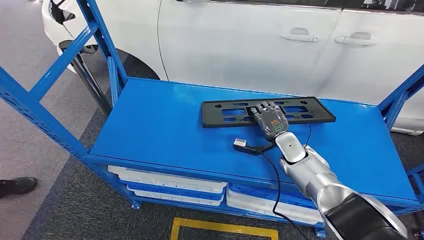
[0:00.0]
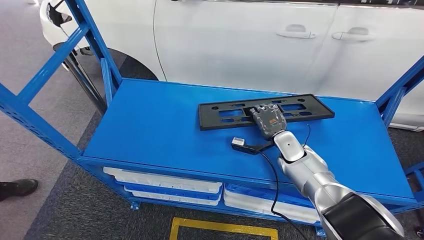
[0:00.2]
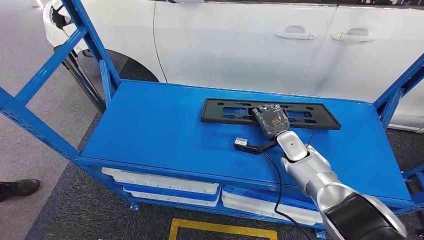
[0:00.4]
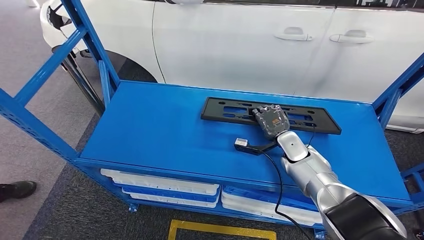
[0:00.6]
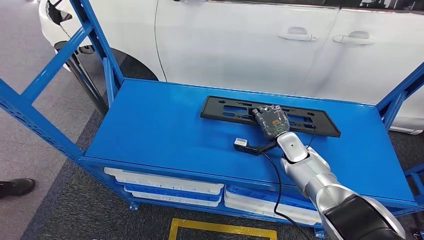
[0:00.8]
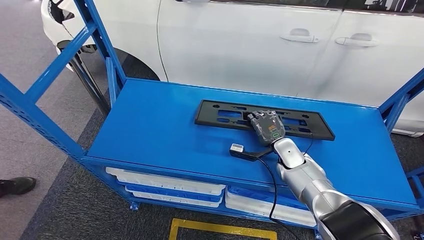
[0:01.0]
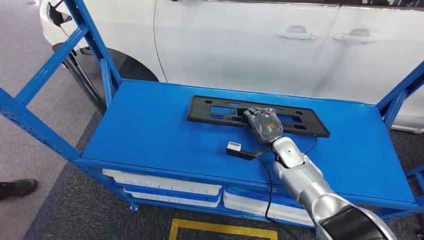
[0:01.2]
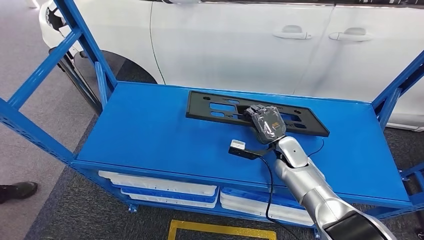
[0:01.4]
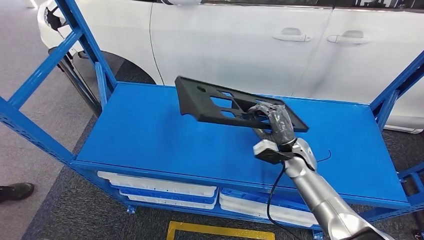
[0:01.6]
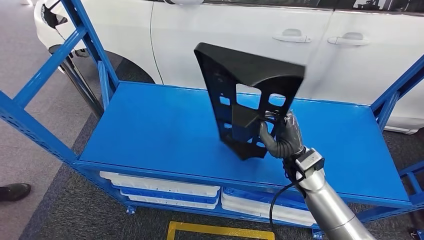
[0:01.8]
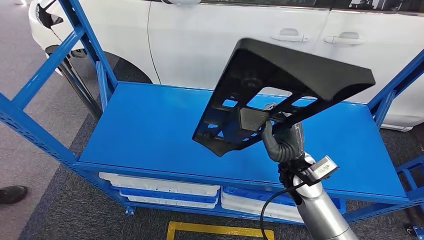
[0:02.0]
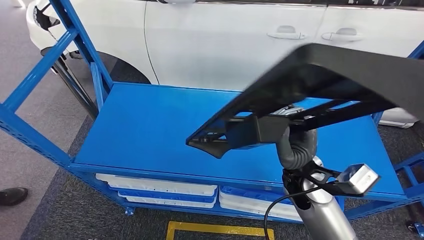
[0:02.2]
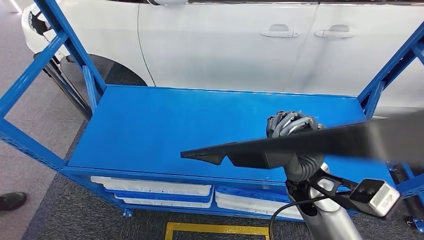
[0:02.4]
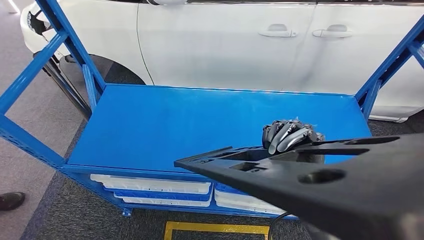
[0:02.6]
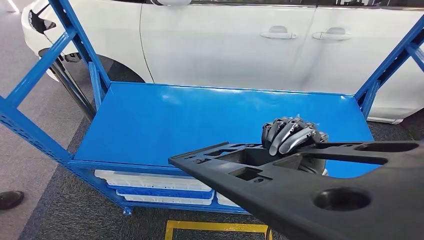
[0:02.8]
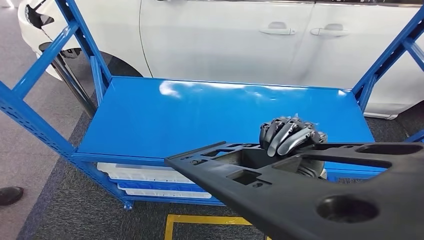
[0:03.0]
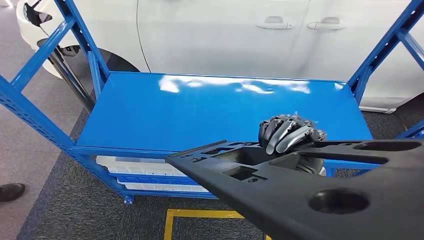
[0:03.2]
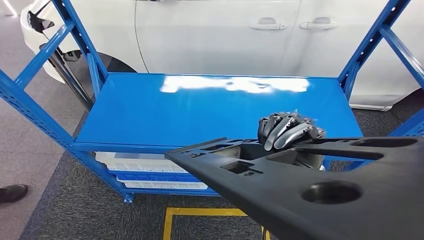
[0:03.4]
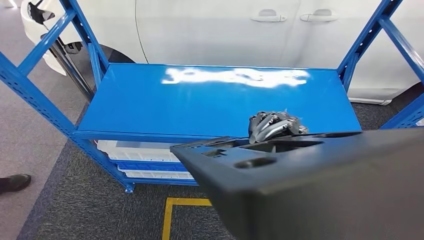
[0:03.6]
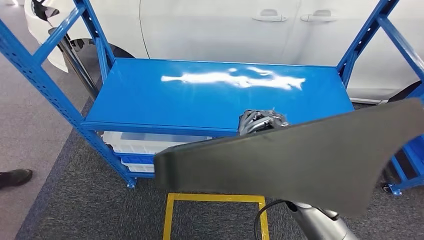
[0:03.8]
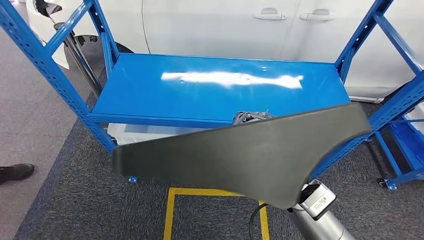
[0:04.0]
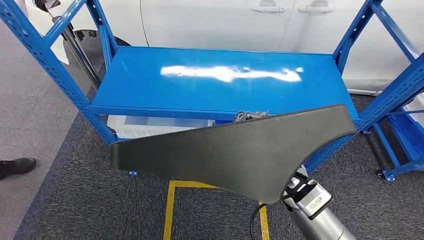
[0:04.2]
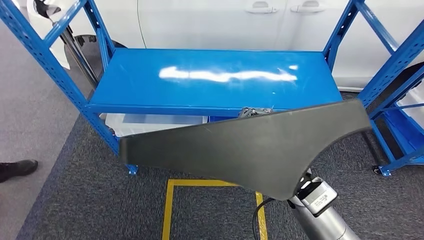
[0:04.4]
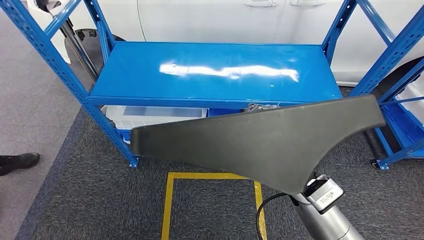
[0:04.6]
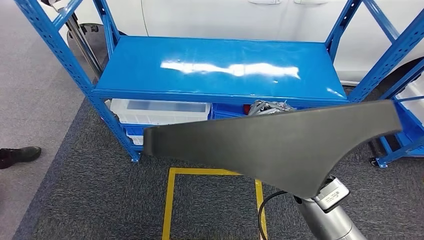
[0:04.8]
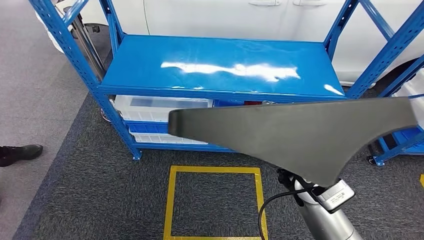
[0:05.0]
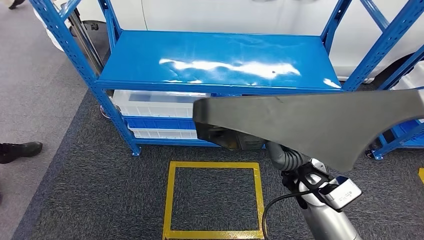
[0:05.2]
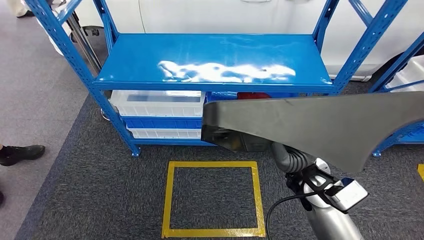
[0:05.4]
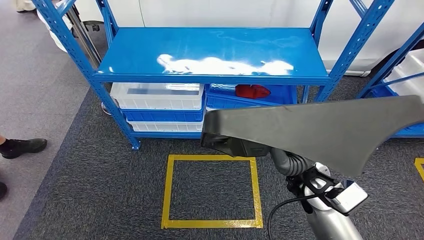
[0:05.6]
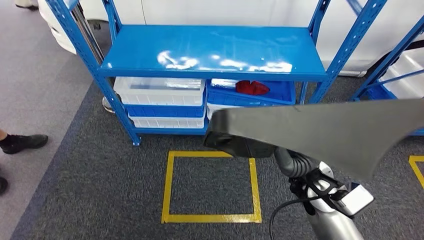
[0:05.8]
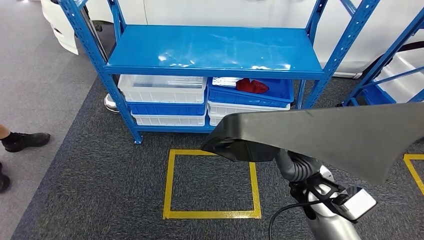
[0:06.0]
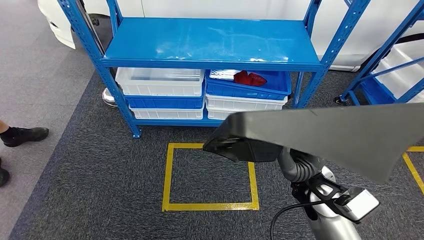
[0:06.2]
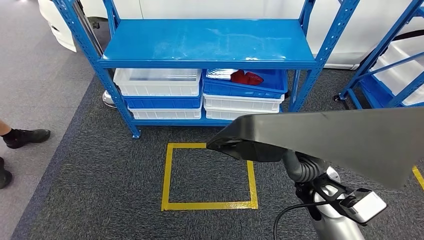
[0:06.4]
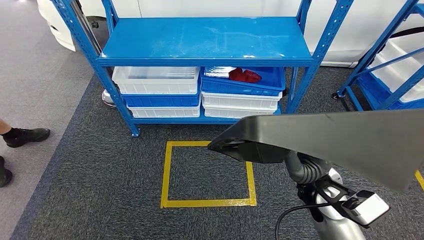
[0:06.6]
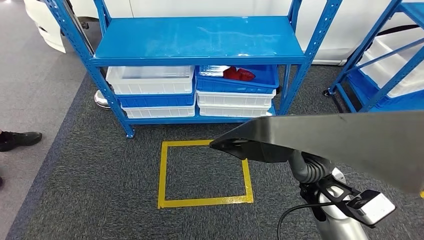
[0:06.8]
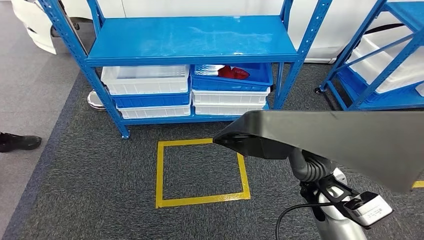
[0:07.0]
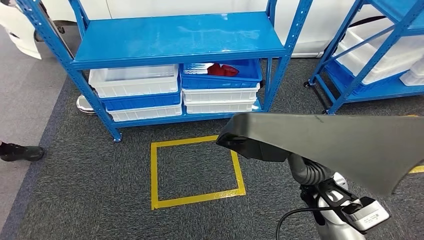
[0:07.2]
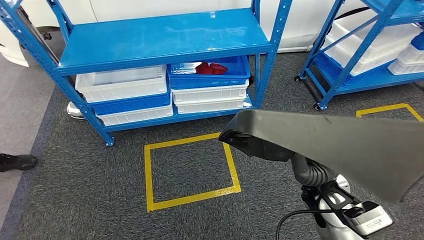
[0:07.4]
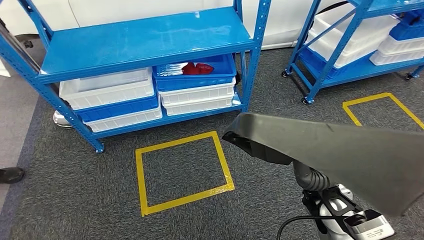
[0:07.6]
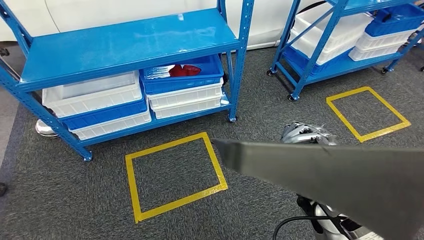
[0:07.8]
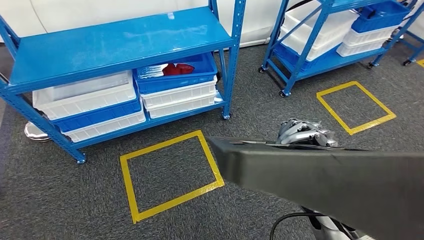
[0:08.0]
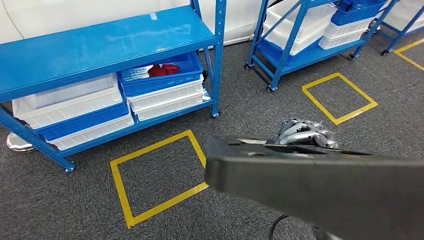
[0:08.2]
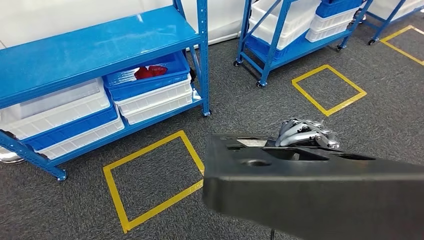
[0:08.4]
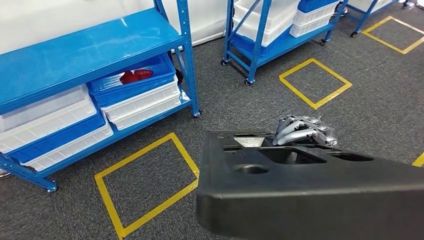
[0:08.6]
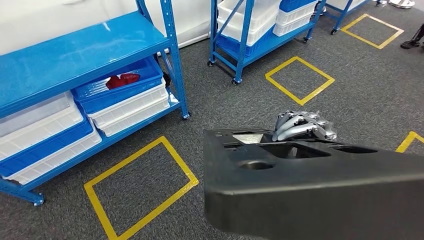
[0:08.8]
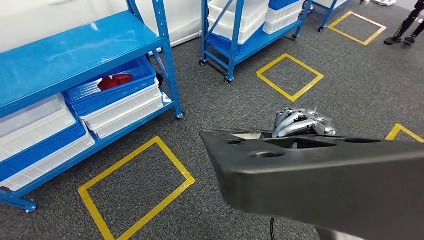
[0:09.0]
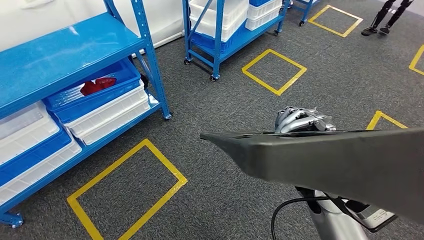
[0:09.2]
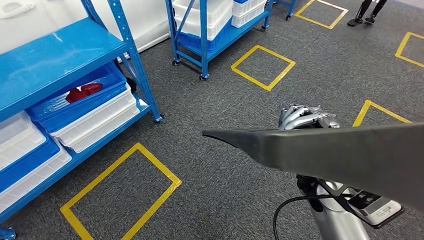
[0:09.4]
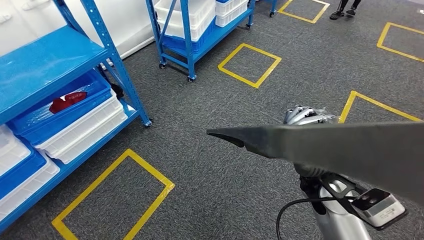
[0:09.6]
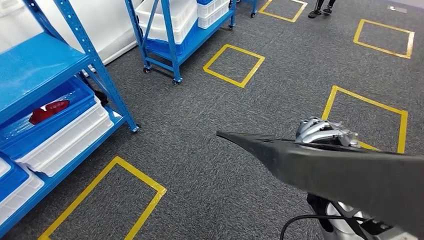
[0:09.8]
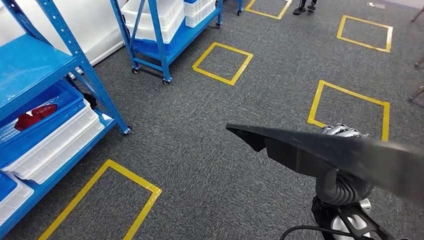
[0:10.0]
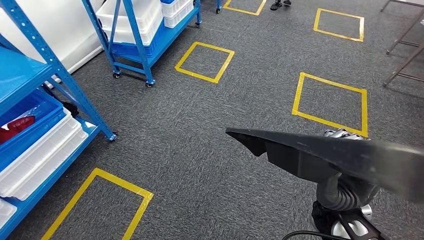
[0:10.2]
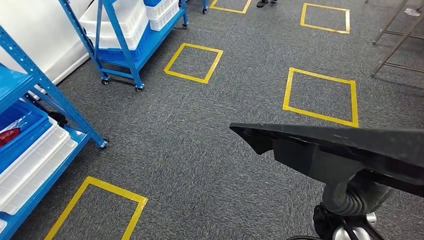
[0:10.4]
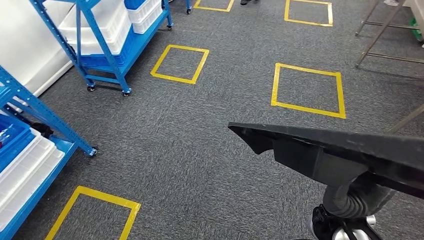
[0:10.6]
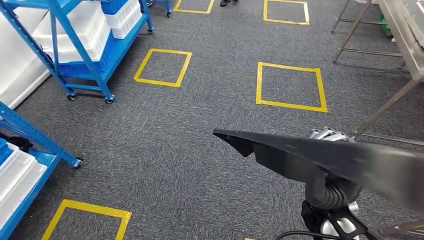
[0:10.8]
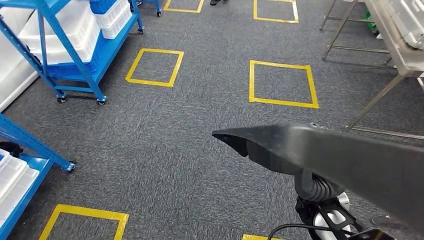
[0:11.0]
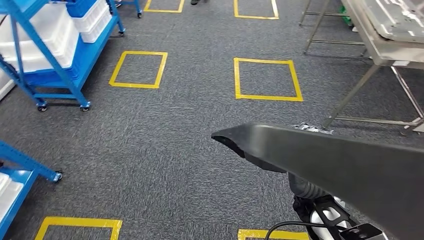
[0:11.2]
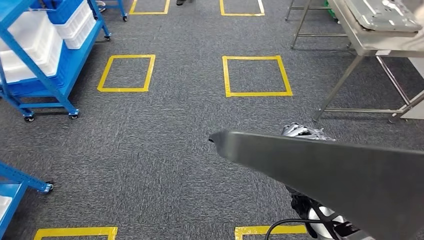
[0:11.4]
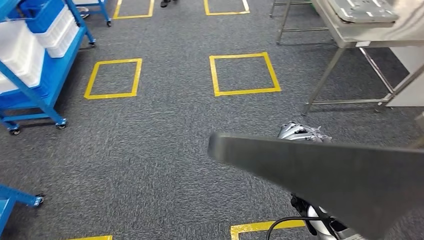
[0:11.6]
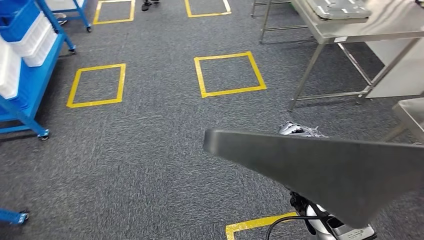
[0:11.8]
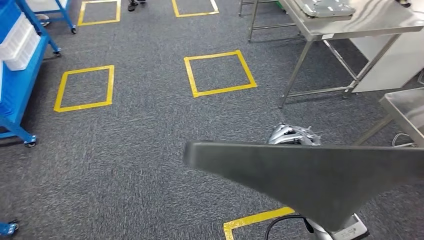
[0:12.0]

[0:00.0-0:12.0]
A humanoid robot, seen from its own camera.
Step, 0:00.0 to 0:02.8: Pick up the large material from the shelf.

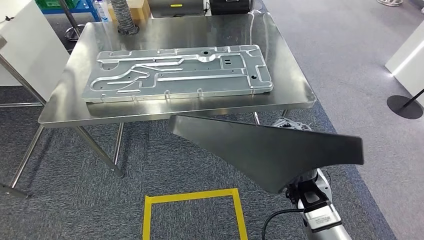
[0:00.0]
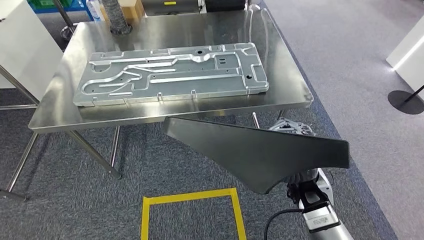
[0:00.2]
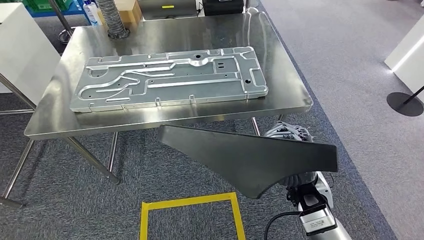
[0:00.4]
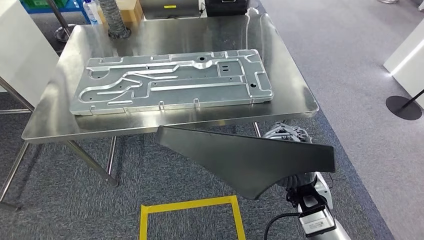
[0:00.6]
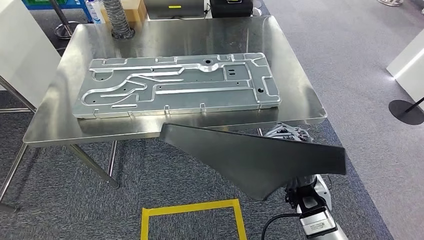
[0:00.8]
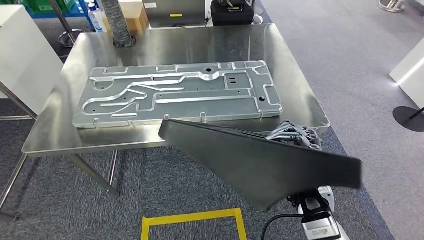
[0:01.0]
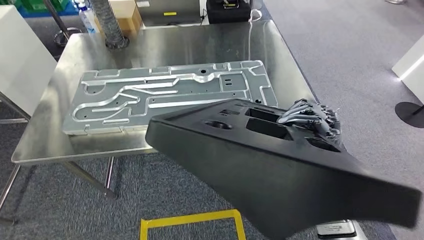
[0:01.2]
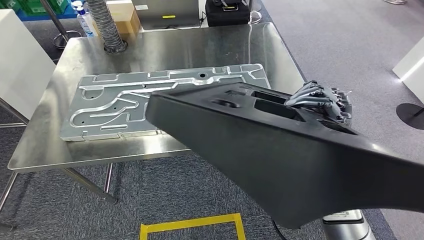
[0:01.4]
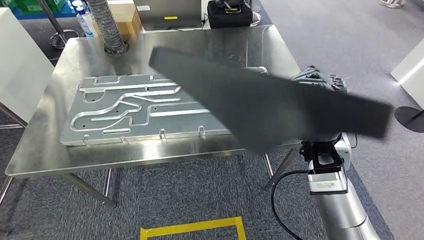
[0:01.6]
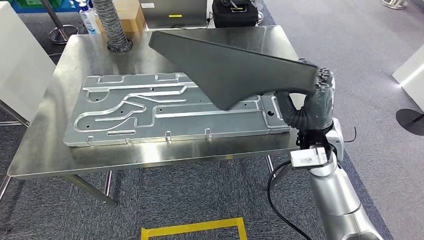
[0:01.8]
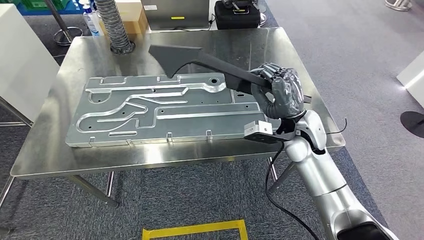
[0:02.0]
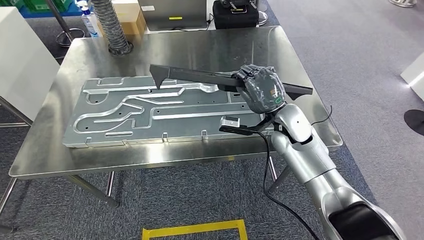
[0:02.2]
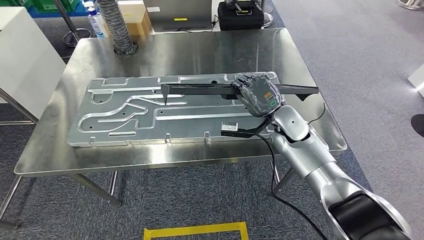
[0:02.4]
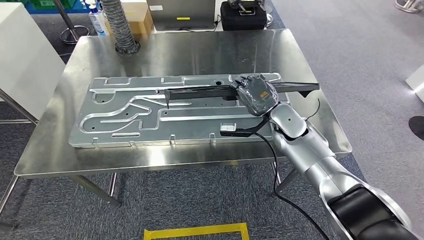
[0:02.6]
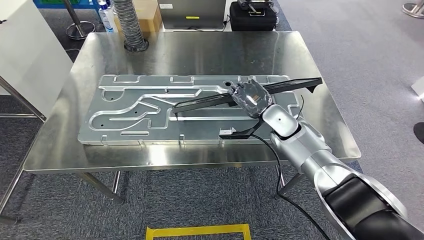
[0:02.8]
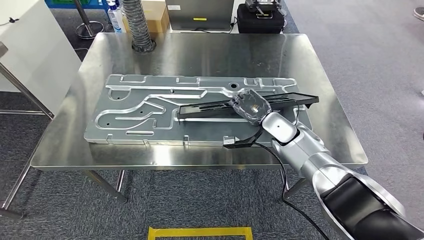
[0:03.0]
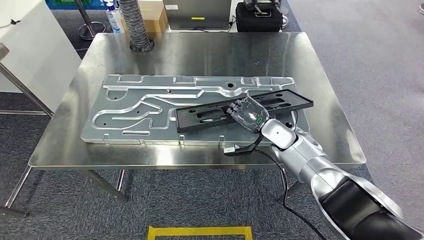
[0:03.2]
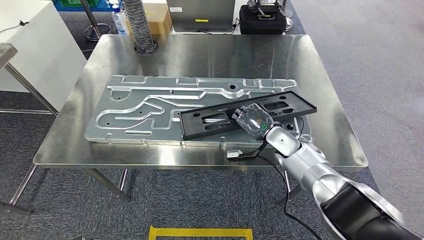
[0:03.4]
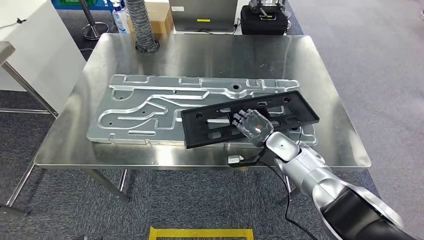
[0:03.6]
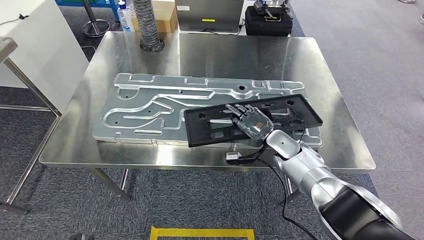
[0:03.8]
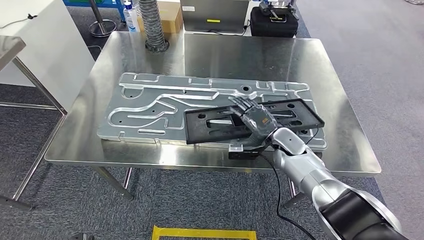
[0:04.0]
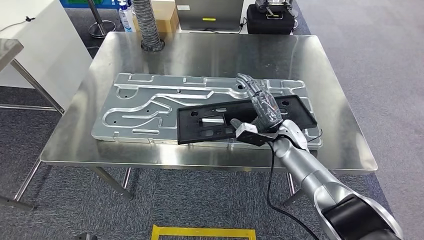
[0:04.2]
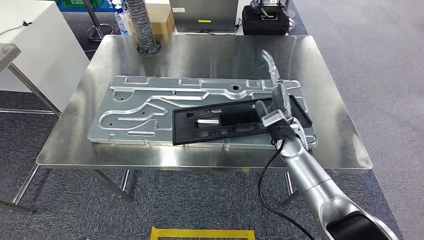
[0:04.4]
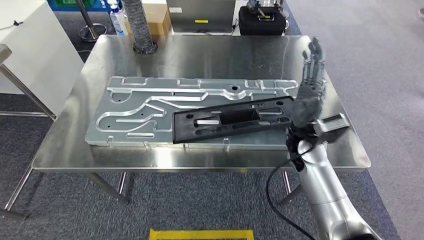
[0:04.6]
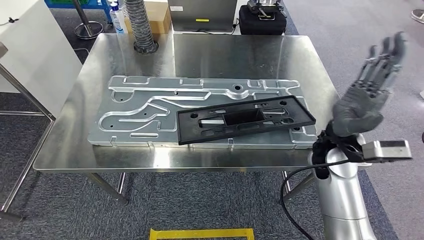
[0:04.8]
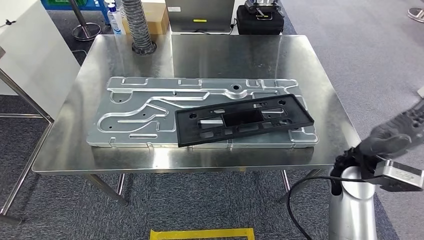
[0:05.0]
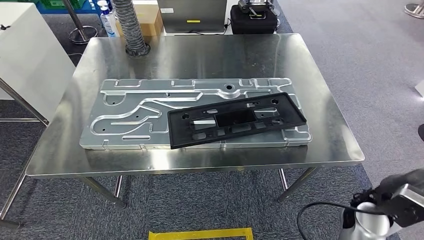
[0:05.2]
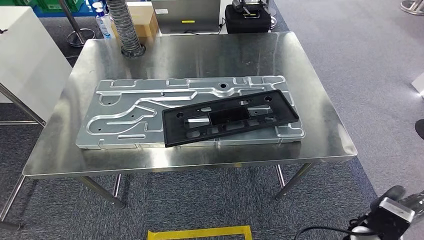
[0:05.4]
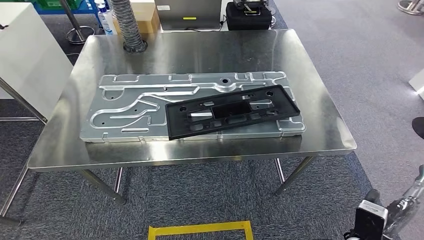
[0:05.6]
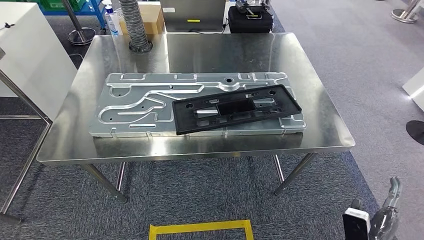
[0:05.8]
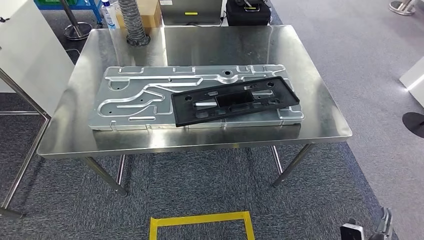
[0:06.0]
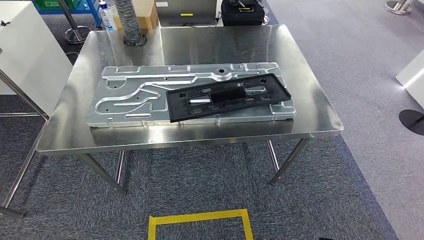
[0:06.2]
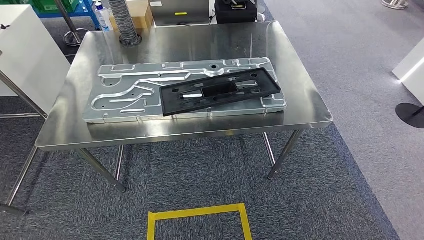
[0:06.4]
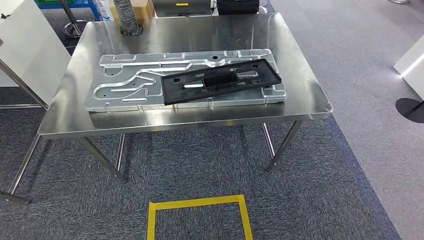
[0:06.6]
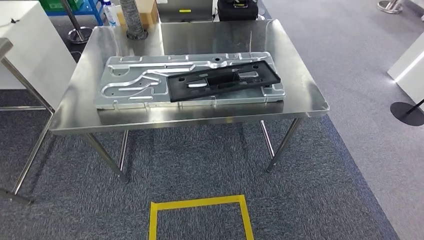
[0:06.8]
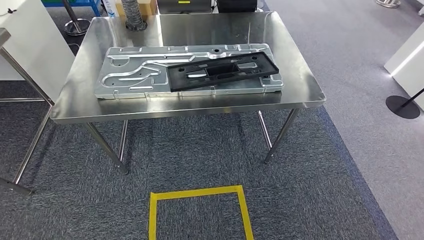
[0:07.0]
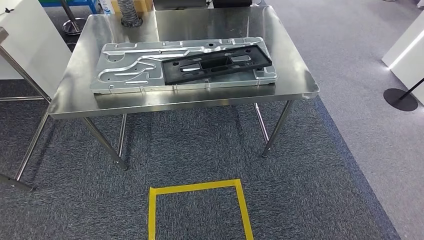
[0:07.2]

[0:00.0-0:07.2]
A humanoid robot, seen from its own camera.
Step, 0:03.4 to 0:05.8: Insert the large material into the corresponding slot on the workbench.
